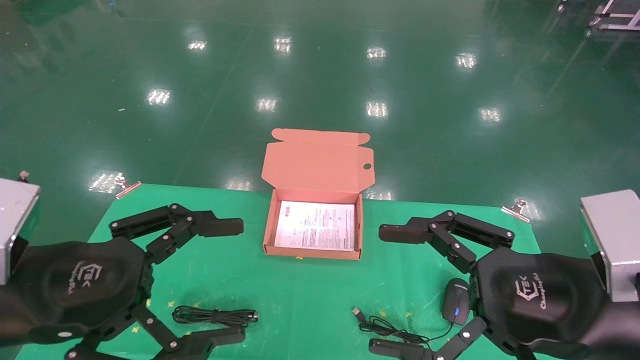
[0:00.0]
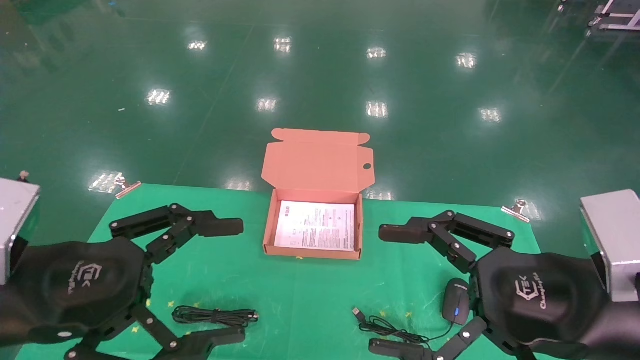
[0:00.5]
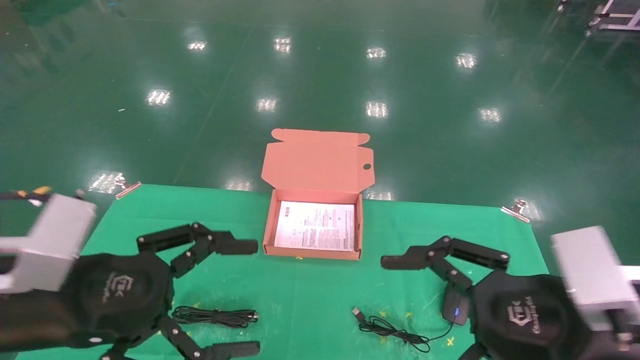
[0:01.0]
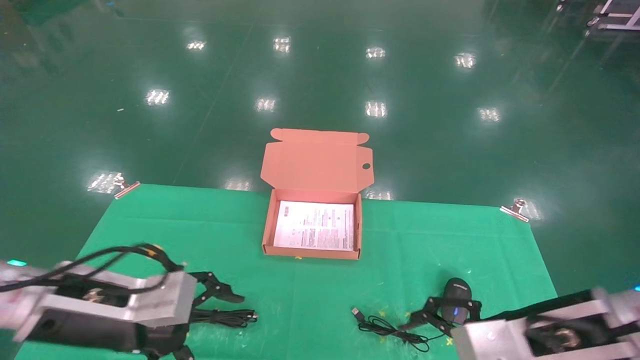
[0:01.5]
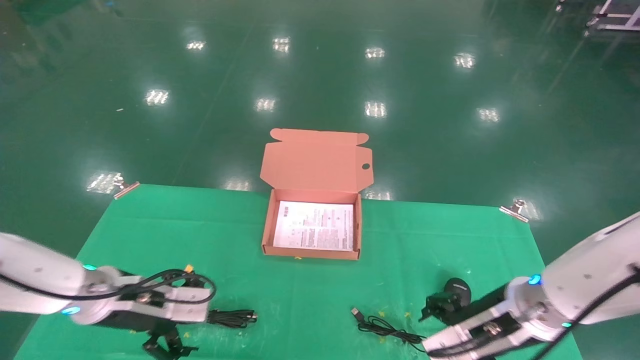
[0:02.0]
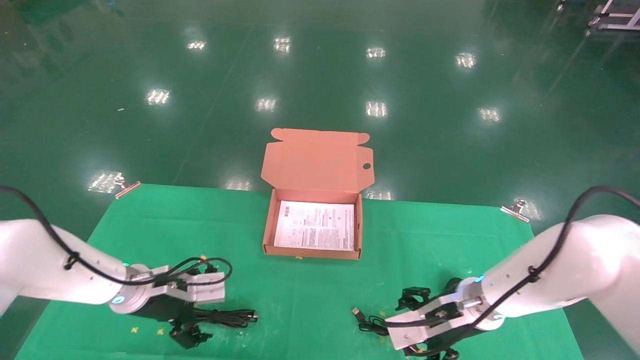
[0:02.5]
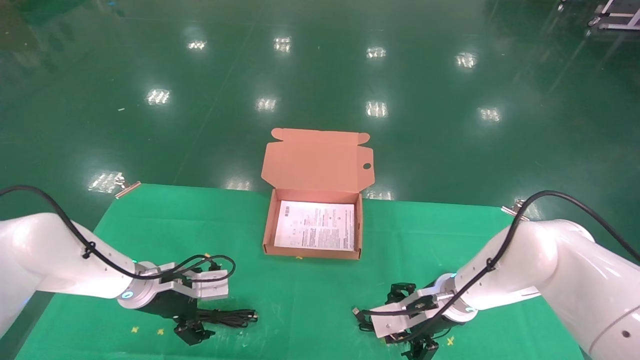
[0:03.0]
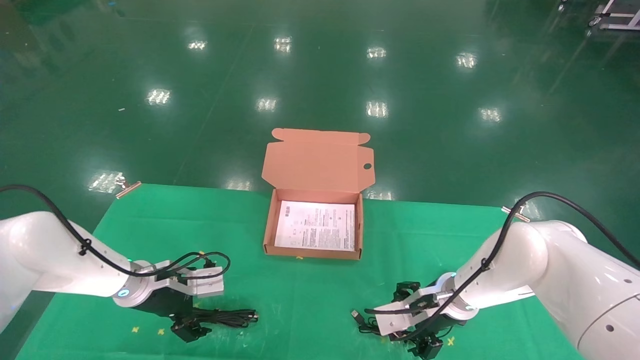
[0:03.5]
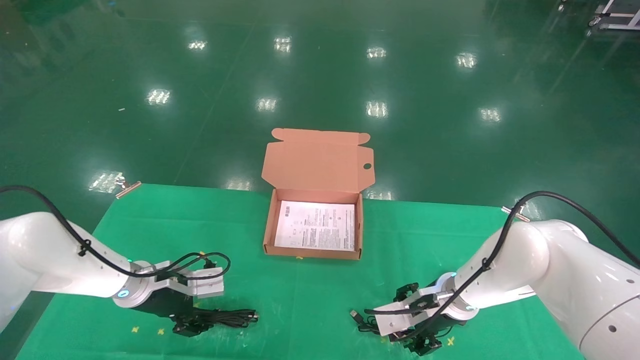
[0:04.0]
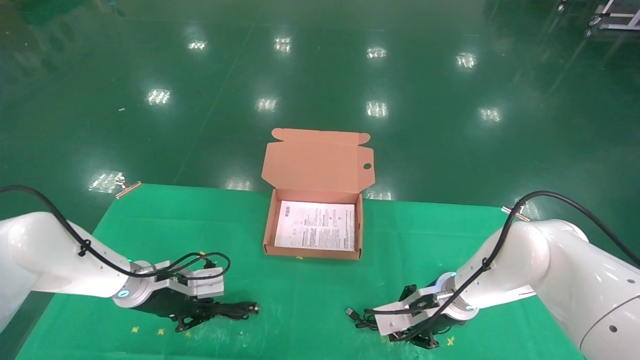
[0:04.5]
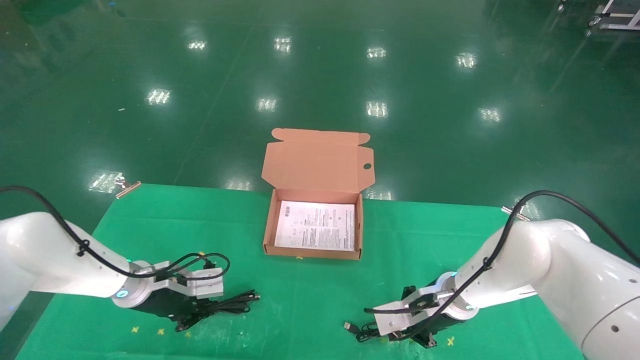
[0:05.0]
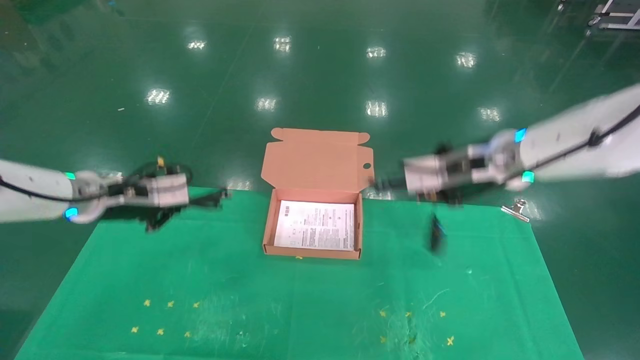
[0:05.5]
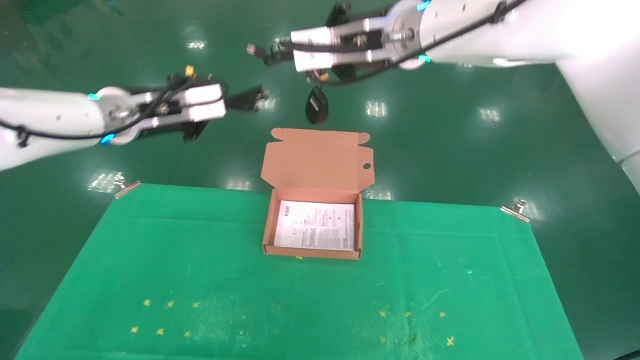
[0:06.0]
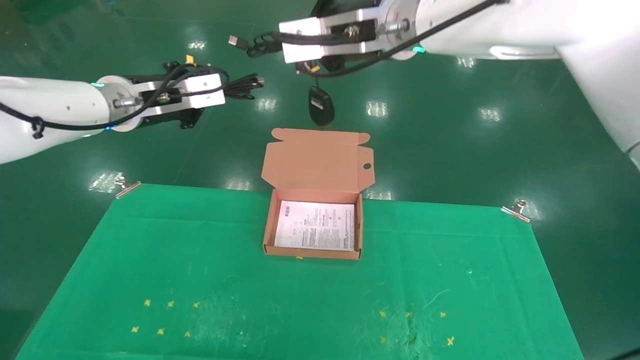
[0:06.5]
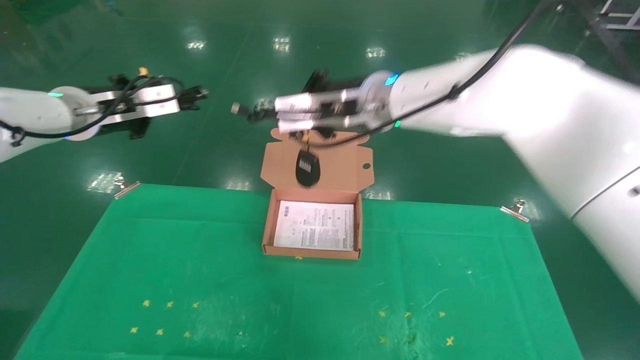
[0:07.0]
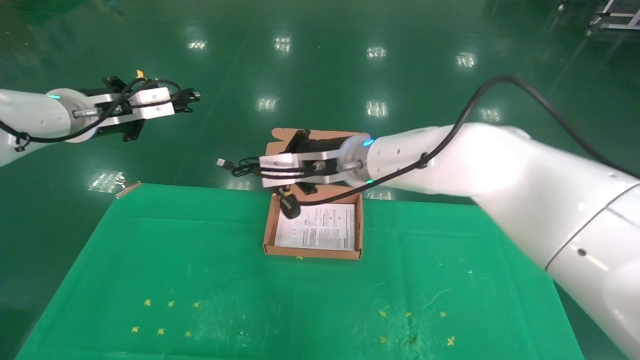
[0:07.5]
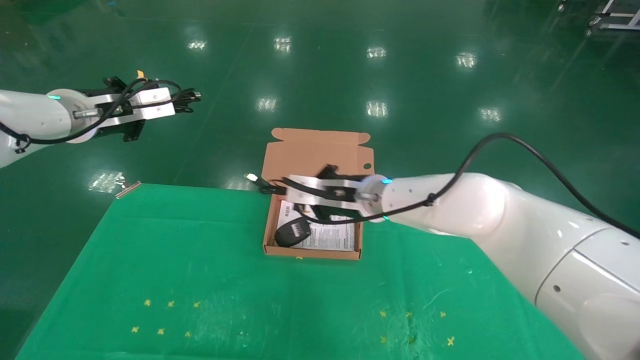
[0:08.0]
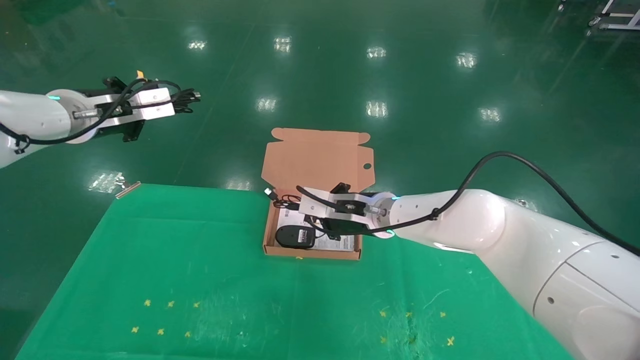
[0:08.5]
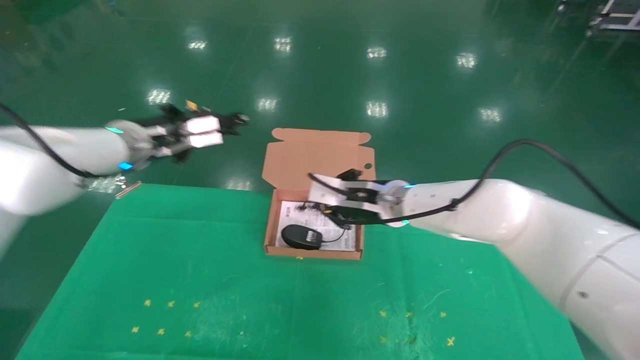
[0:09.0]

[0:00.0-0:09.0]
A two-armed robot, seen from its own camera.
Task of the whole recording: grasp data cable left put into box grasp mouse right put into box.
Step, 0:01.0 to 0:05.5: Grab and pick up both the mouse and power cord from the accessory packaging area at the same time.
0:00.0 to 0:02.0: The two grippers go roughly 20 cm forward and downward.
0:02.0 to 0:04.5: The right gripper moves forward and downward, some 10 cm, and closes up. The left gripper shifts approximately 10 cm forward, and closes.
0:04.5 to 0:07.0: The left gripper goes approximately 25 cm upward. Meanwhile the right gripper moves upward and to the left, roughly 30 cm.
0:07.0 to 0:09.0: The right gripper shifts approximately 15 cm downward; the left gripper goes about 10 cm to the right and downward.

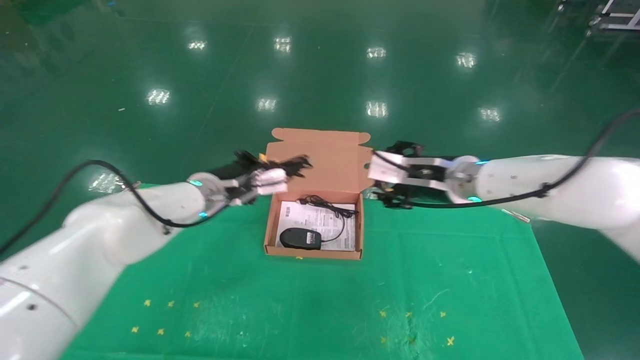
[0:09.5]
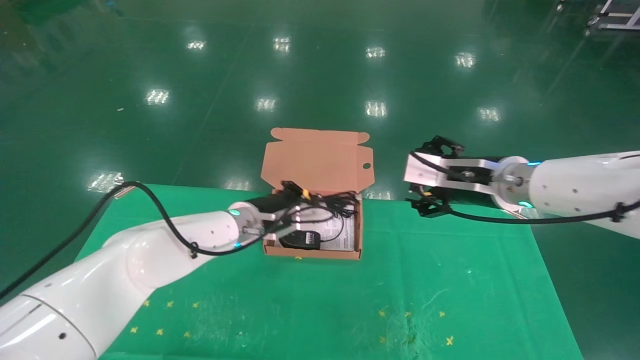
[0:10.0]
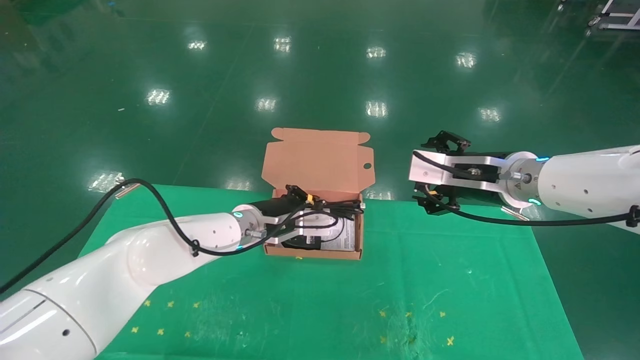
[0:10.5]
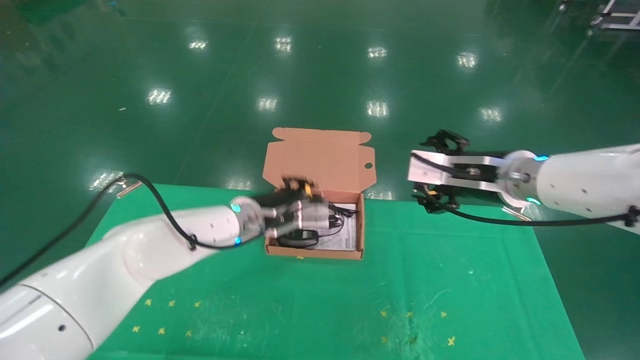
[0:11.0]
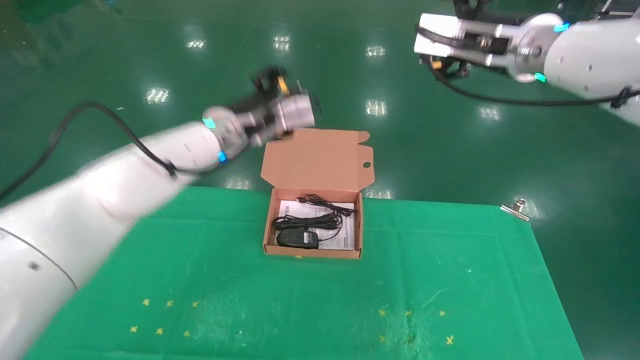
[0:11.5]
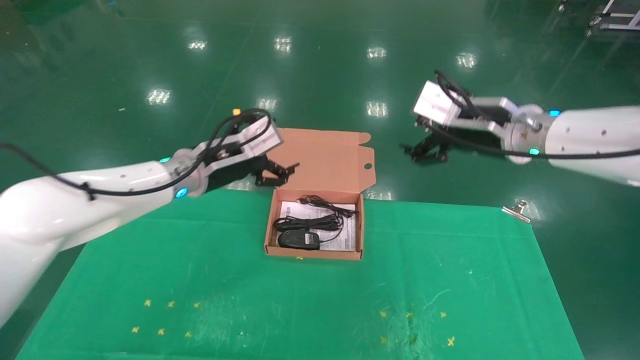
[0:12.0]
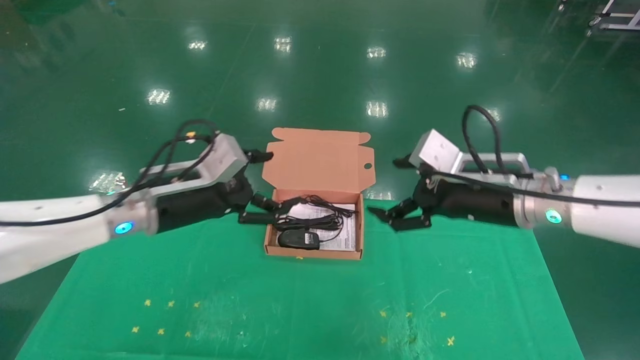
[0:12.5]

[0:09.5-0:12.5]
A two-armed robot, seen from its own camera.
Task of the whole recording: grasp data cable left put into box grasp mouse right put into box.
0:09.5 to 0:11.0: The left gripper shifts some 5 cm to the right, while the right gripper travels upward by some 5 cm, and opens.
0:11.0 to 0:12.5: The right gripper moves downward, about 5 cm. Meanwhile the left gripper moves to the left and backward, some 15 cm, and opens up.
